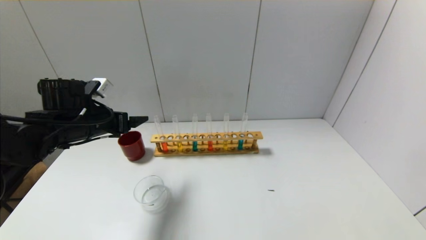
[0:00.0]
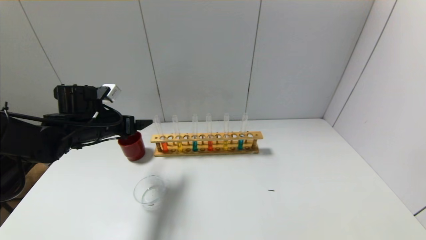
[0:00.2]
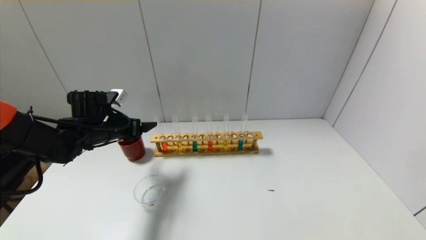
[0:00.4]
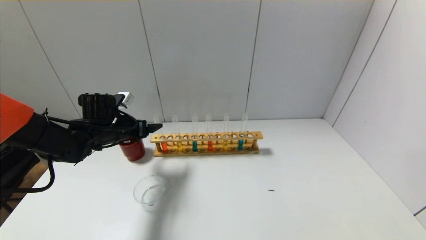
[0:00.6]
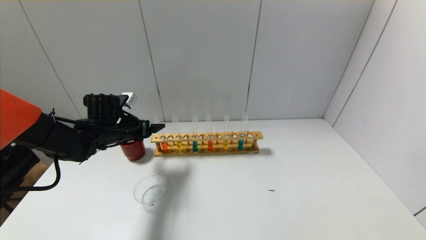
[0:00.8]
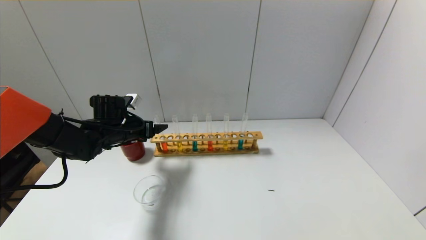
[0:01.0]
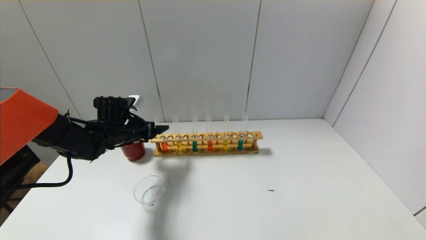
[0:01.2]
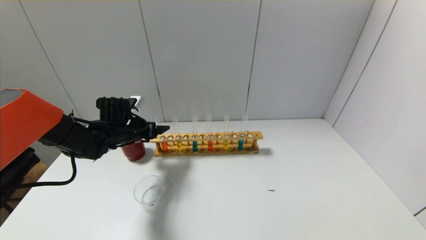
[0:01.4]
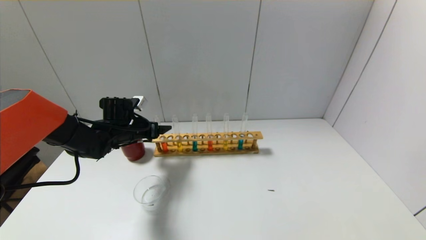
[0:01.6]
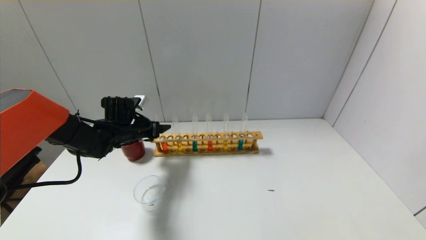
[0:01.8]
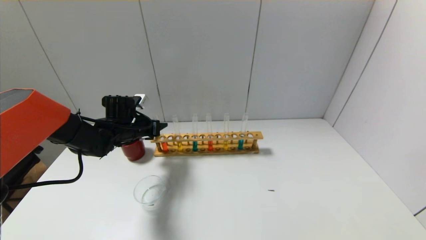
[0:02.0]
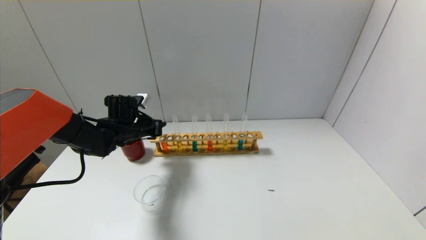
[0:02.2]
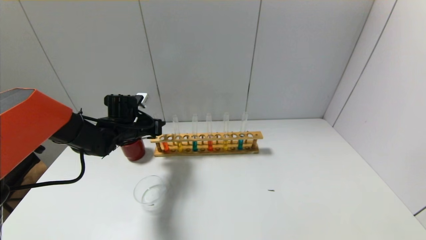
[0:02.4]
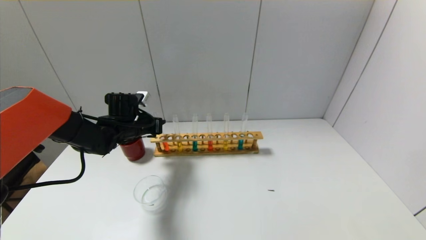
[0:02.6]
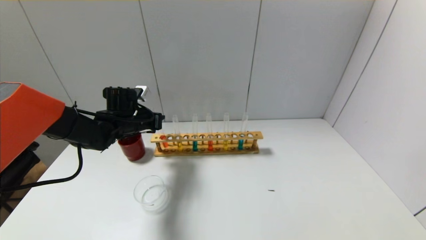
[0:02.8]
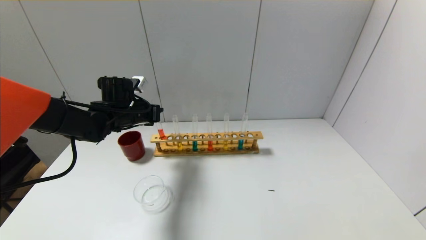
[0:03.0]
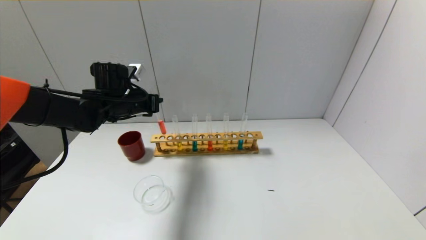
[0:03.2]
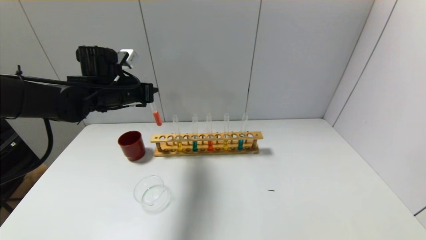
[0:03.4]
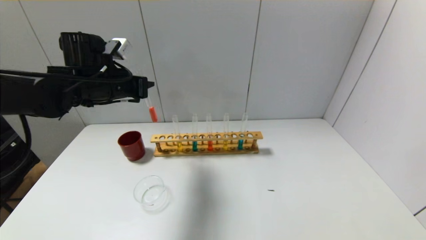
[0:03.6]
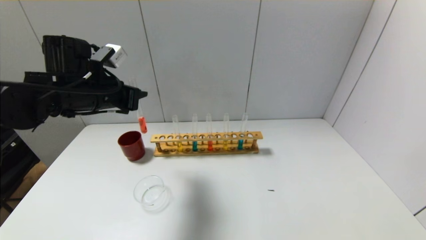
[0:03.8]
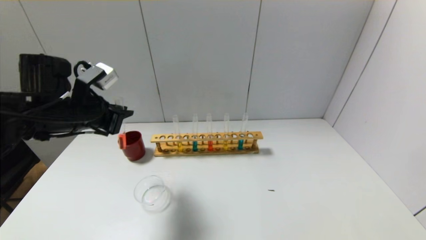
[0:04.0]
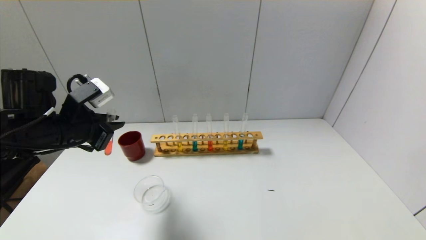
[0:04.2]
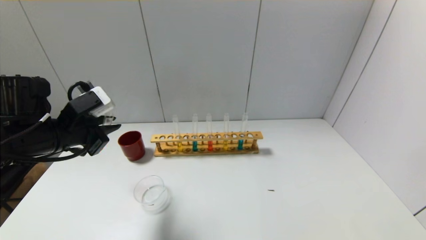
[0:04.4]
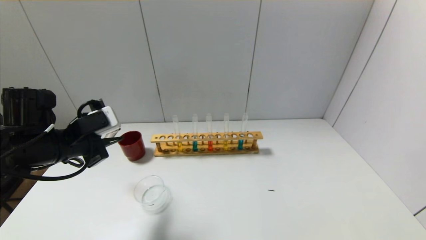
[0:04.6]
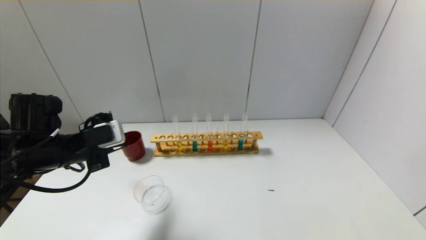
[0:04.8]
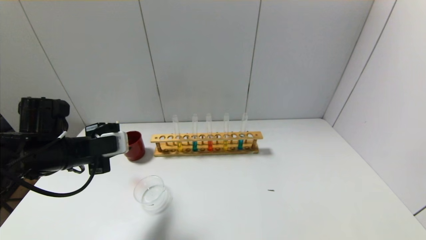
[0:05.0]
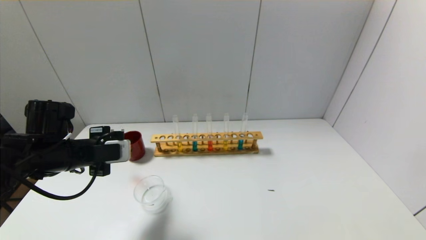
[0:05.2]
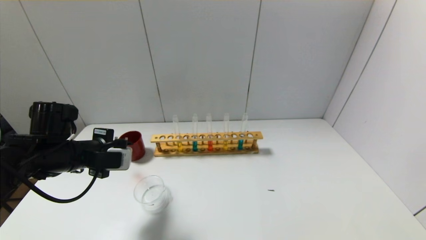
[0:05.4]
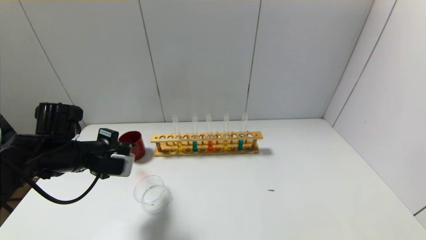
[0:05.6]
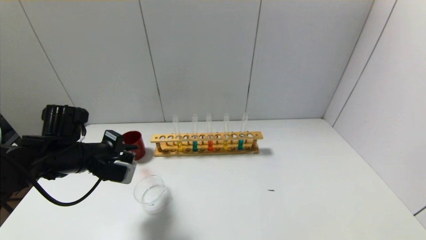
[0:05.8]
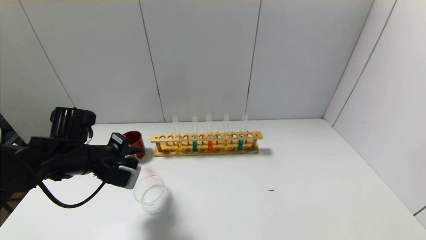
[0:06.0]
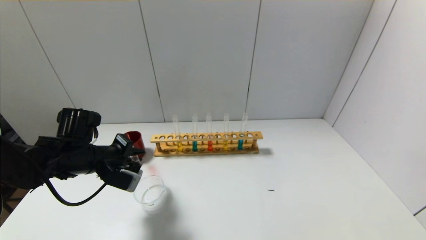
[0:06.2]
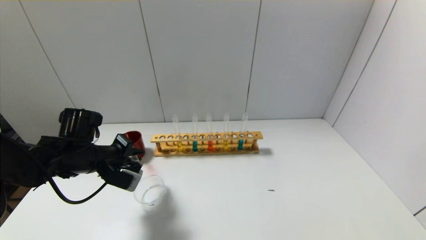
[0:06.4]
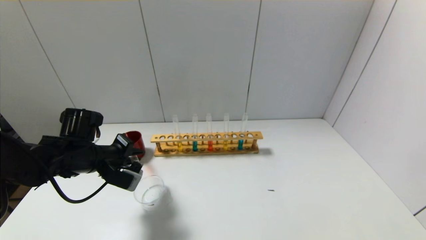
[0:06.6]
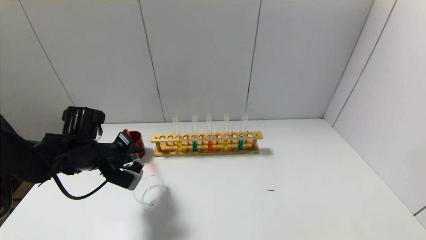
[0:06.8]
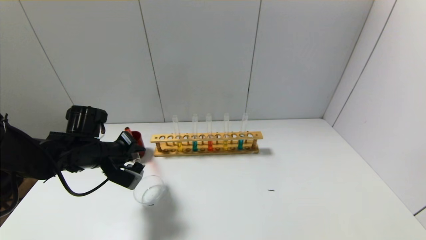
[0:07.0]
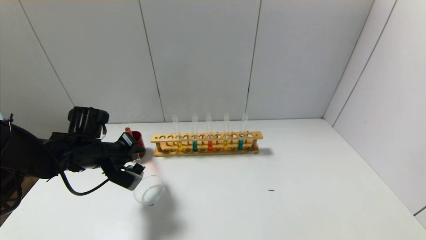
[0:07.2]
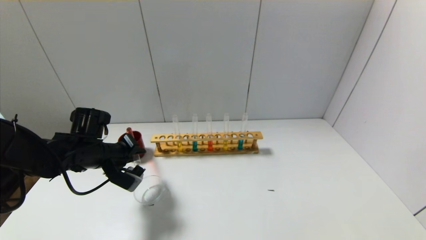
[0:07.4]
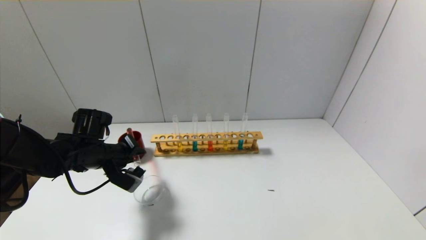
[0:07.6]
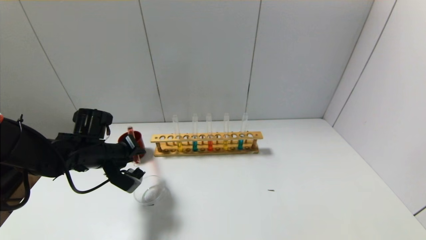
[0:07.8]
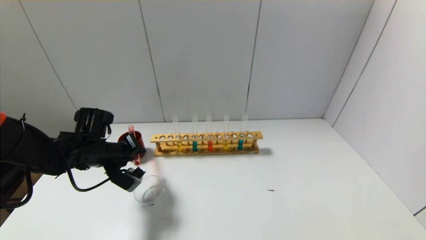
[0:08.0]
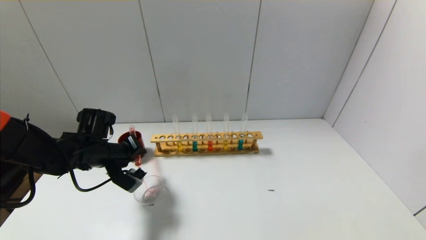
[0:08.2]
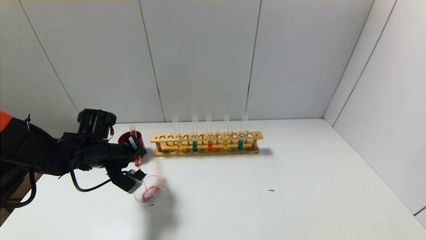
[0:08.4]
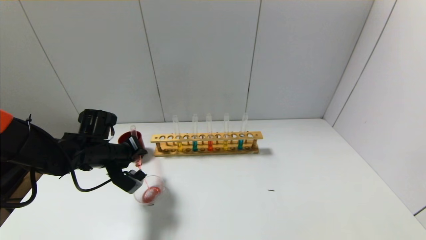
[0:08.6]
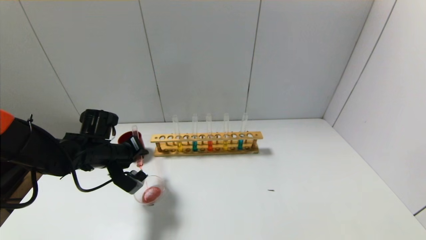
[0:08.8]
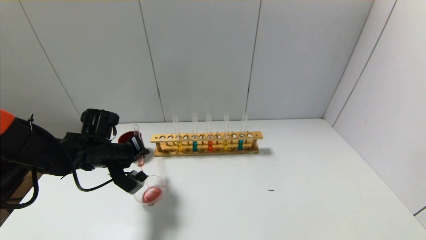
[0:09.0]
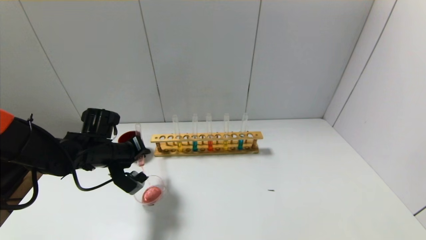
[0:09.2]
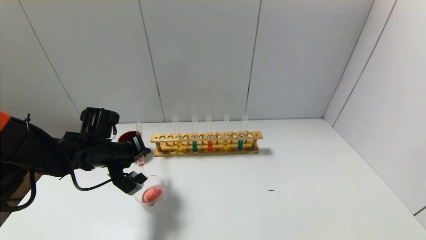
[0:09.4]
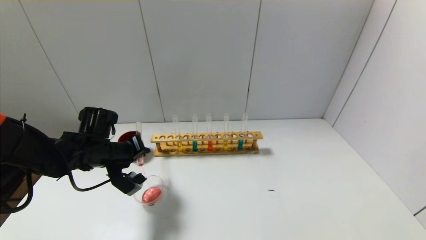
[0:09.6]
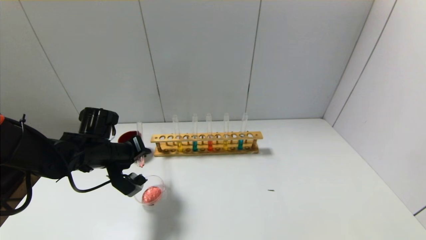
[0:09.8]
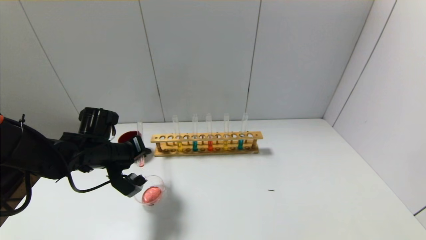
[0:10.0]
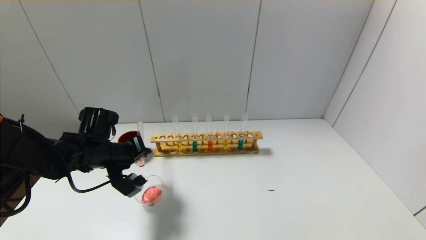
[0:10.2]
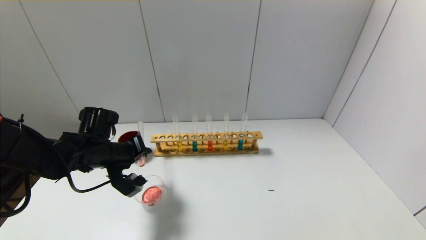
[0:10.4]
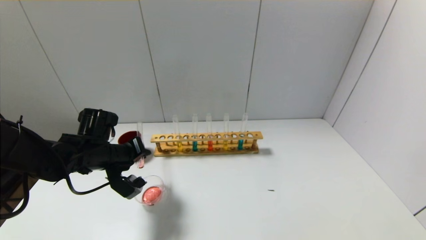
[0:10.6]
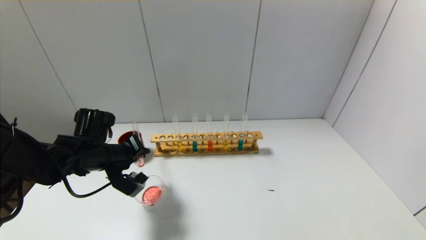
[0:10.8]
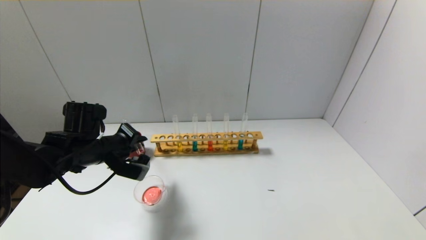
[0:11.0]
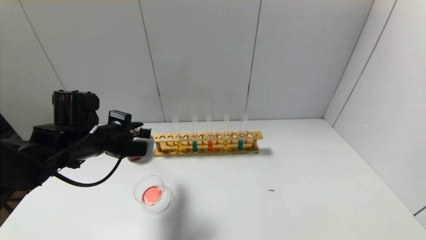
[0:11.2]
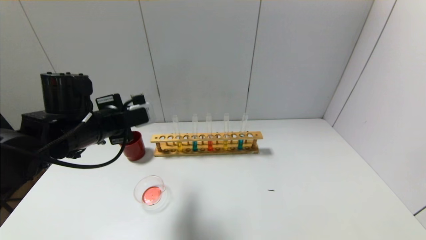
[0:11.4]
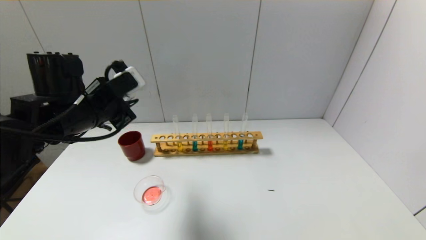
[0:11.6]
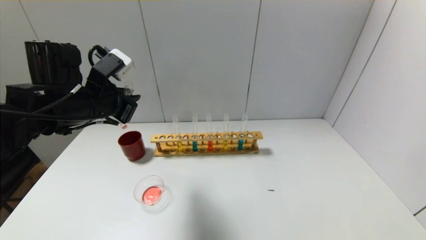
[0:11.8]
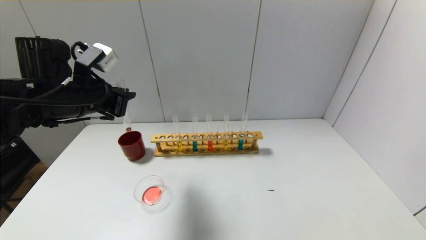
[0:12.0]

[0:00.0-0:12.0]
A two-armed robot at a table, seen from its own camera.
Step, 0:00.0 to 0:02.2: Grasp the red reagent with the left gripper.
Step, 0:02.4 to 0:11.0: Pour the red reagent into the graduated cylinder with the left gripper.
0:00.0 to 0:01.6: The left gripper moves forward and downward, roughly 10 cm.
0:01.6 to 0:03.0: The left gripper heads upward, covering roughly 5 cm, and closes.
0:03.0 to 0:04.4: The left gripper moves backward, about 15 cm.
0:04.4 to 0:06.0: The left gripper shifts some 5 cm downward.
0:06.0 to 0:07.6: The grippers make only small movements.
0:07.6 to 0:10.4: The grippers make only small movements.
0:10.4 to 0:12.0: The left gripper travels upward by about 15 cm.

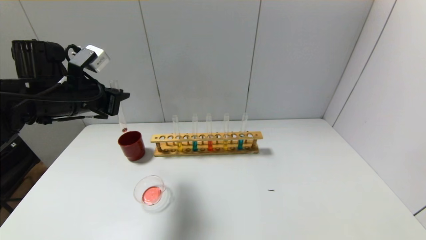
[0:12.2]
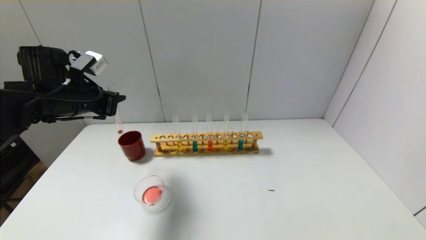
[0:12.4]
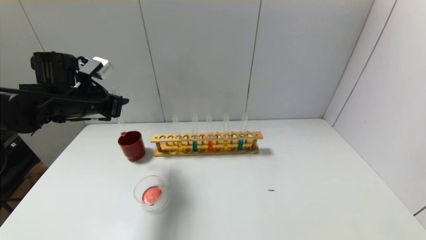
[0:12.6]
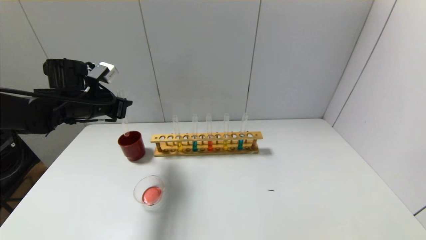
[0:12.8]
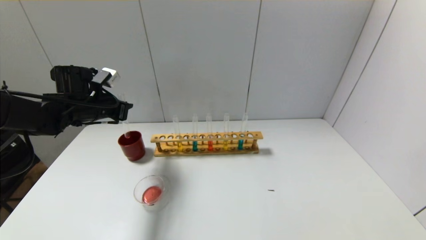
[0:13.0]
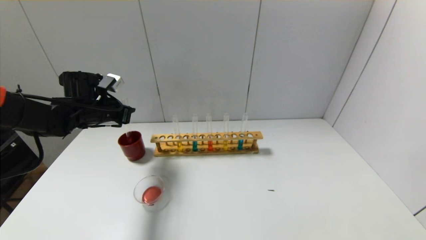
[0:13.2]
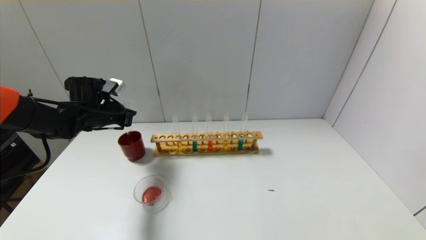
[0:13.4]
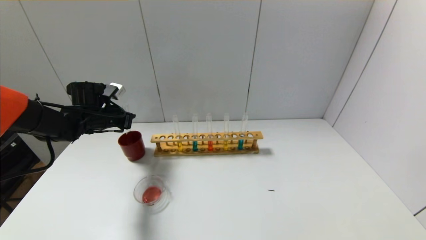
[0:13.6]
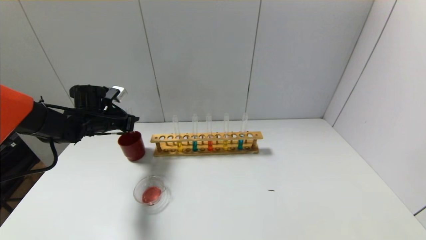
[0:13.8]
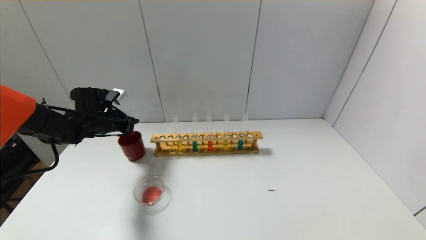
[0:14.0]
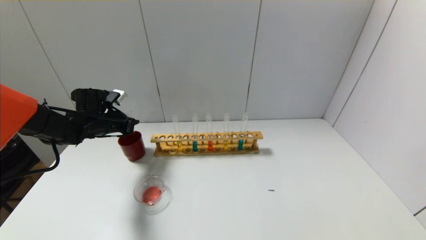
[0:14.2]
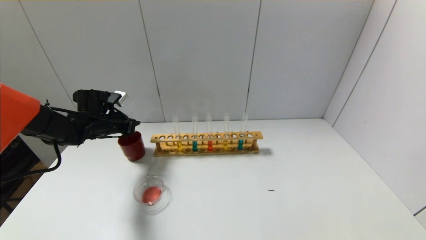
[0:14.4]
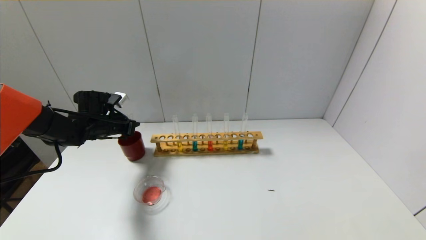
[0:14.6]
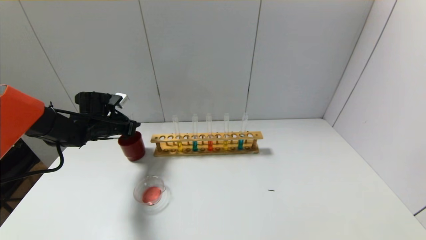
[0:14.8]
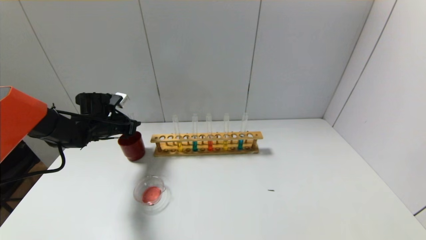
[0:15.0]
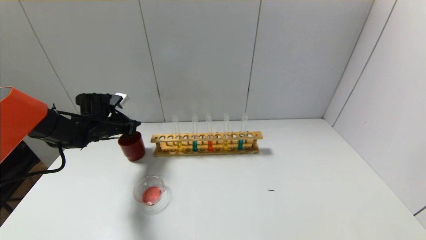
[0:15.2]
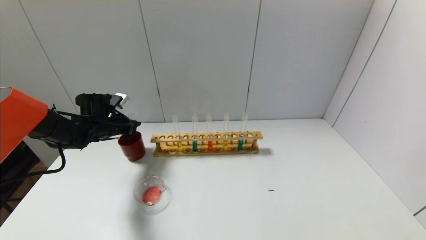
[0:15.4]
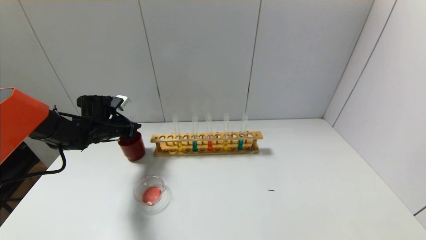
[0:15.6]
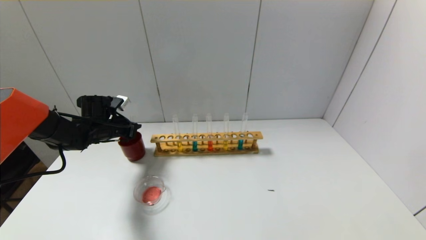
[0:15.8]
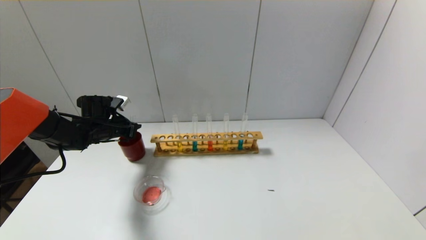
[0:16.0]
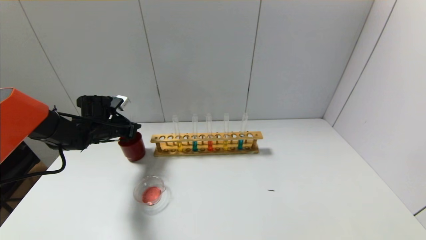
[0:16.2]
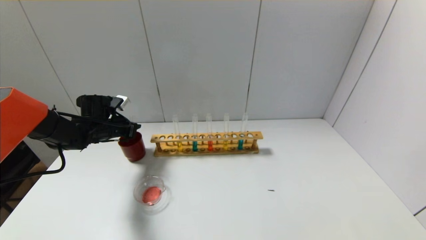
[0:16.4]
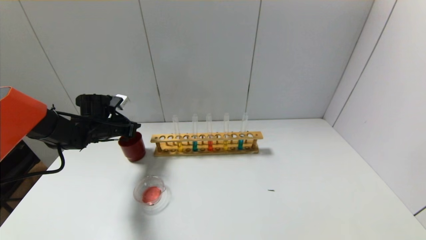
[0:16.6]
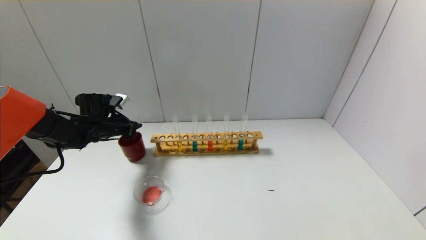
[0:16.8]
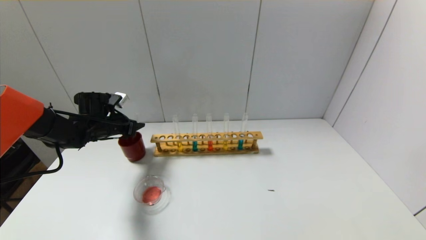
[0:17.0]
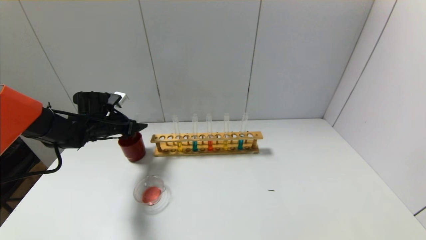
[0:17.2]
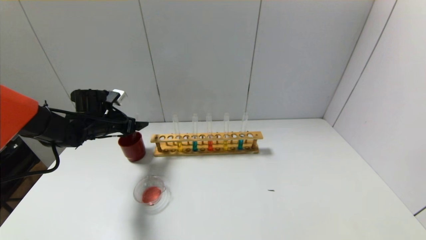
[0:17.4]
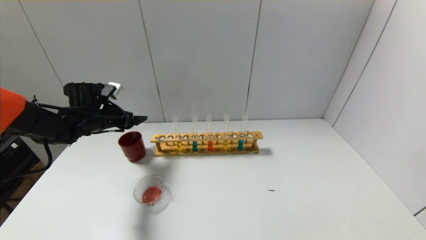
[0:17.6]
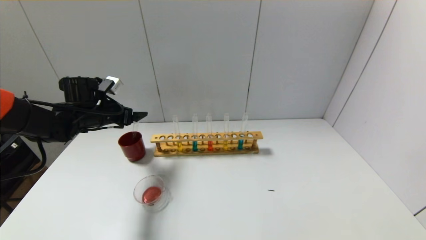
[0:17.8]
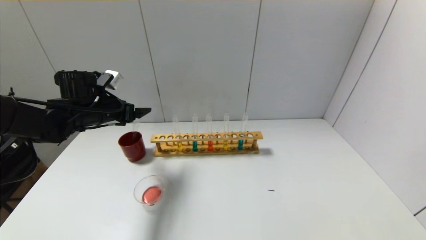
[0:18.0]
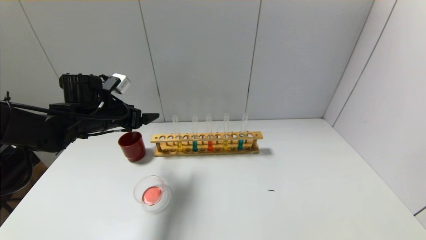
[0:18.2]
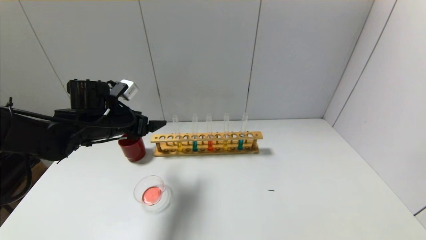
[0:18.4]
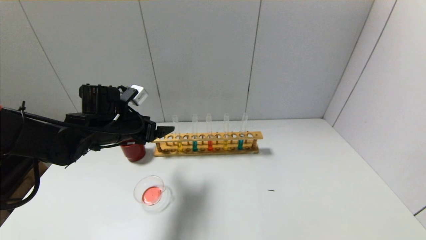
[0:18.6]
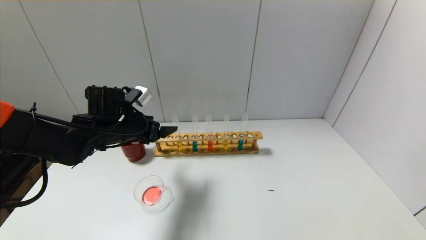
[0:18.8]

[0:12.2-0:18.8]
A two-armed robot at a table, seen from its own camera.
Step, 0:12.2 to 0:16.8: Place the test tube into the brown cup with the left gripper.
0:12.2 to 0:13.8: The left gripper heads downward and forward, covering about 15 cm.
0:13.8 to 0:15.4: The grippers stay close to where they were, moving slightly.
0:15.4 to 0:17.2: The left gripper opens its fingers.
0:17.2 to 0:18.8: The left gripper is displaced to the right and backward by some 10 cm.
